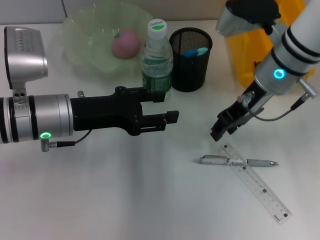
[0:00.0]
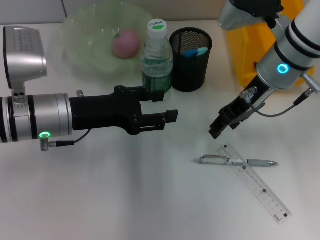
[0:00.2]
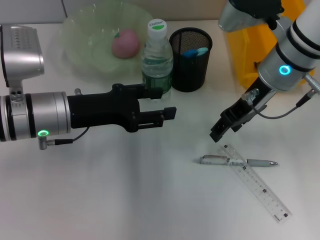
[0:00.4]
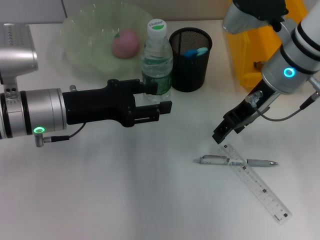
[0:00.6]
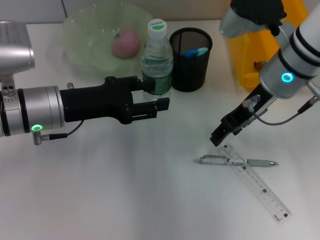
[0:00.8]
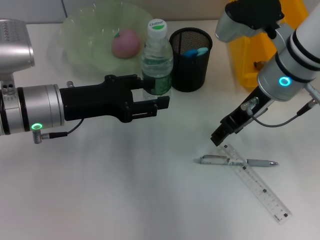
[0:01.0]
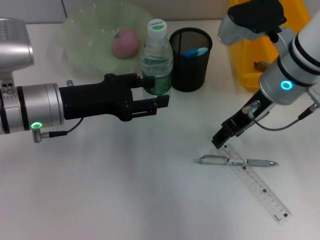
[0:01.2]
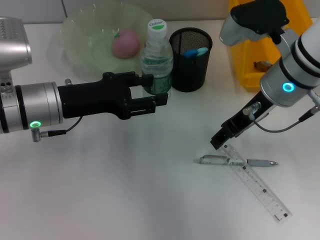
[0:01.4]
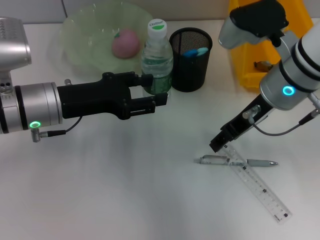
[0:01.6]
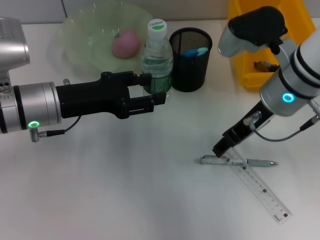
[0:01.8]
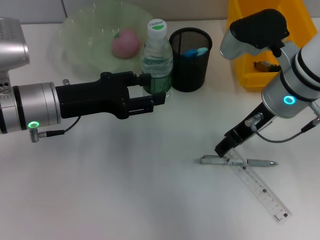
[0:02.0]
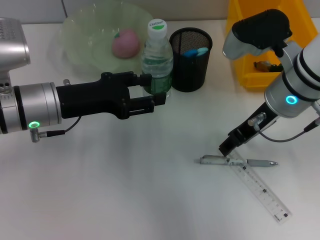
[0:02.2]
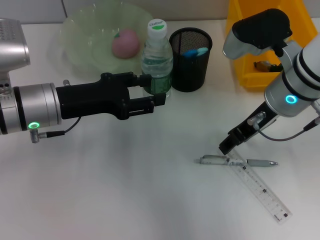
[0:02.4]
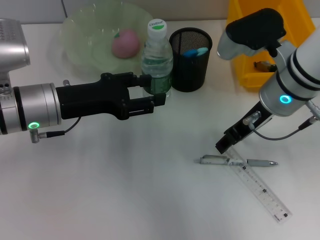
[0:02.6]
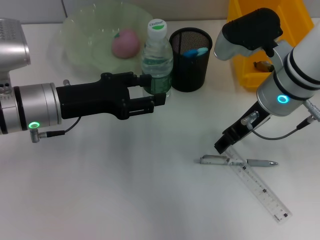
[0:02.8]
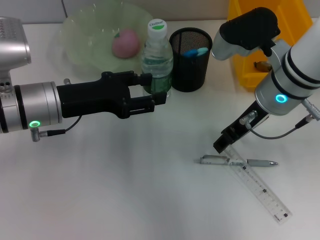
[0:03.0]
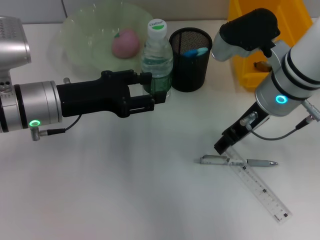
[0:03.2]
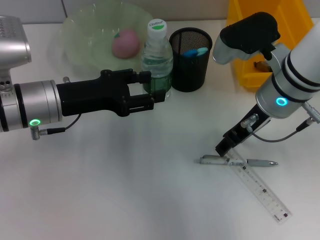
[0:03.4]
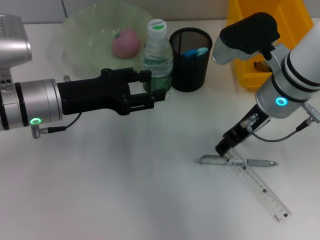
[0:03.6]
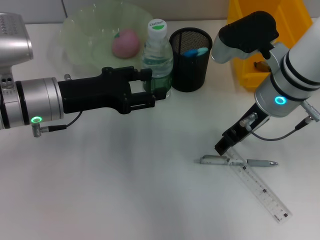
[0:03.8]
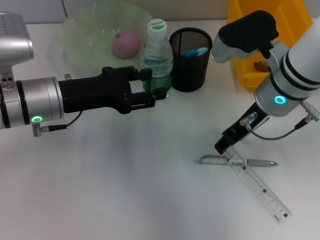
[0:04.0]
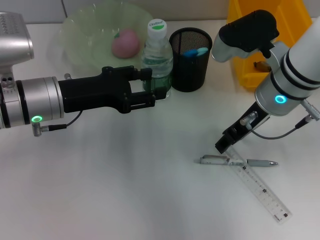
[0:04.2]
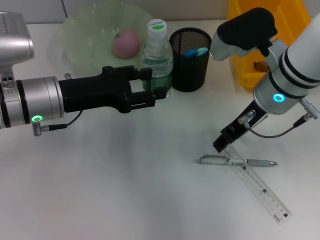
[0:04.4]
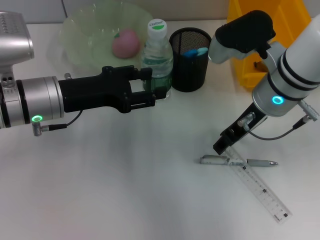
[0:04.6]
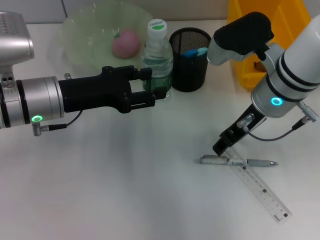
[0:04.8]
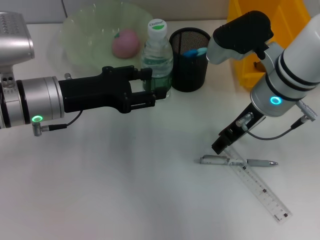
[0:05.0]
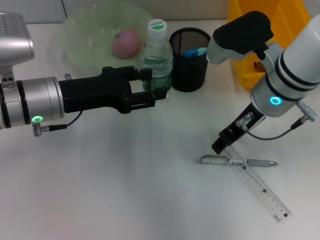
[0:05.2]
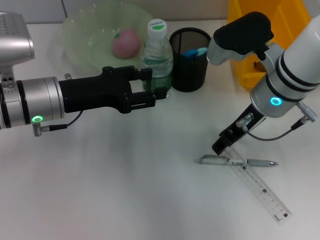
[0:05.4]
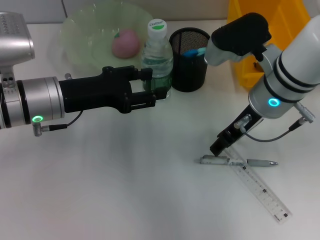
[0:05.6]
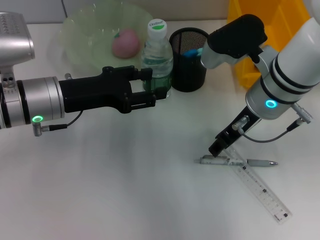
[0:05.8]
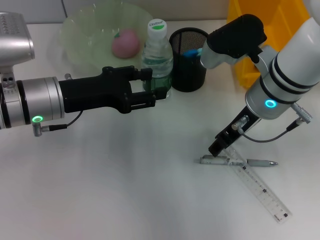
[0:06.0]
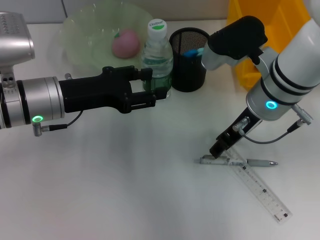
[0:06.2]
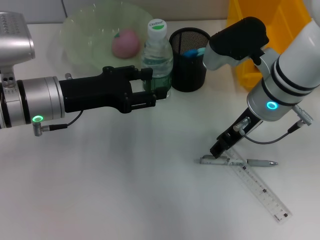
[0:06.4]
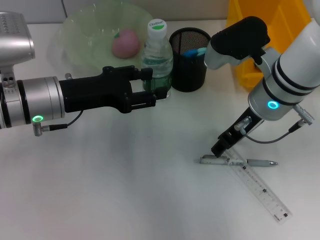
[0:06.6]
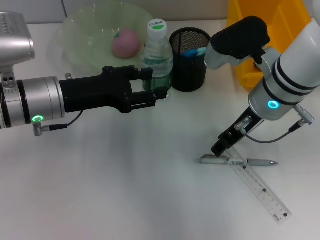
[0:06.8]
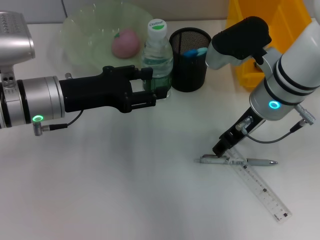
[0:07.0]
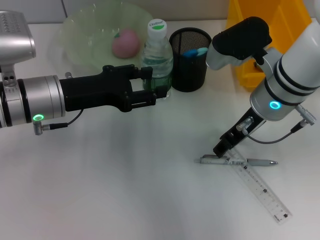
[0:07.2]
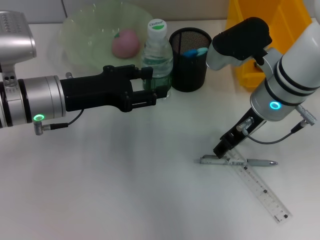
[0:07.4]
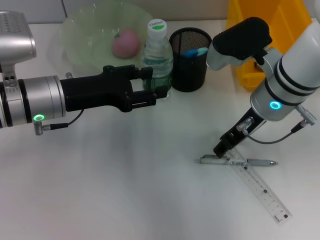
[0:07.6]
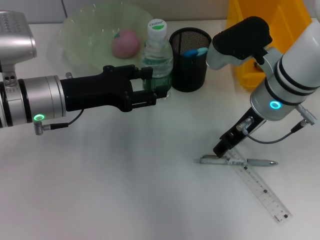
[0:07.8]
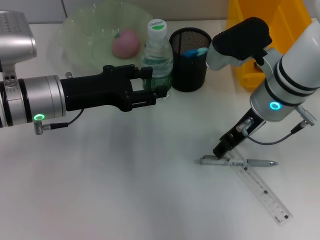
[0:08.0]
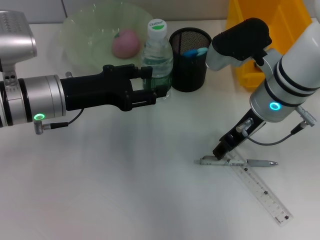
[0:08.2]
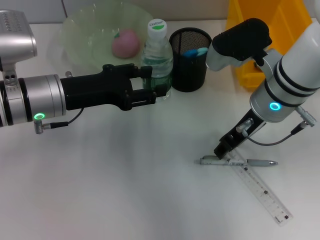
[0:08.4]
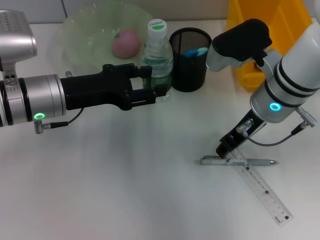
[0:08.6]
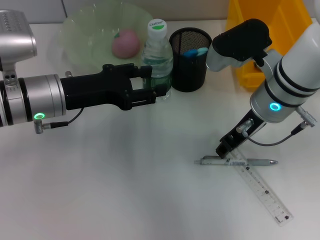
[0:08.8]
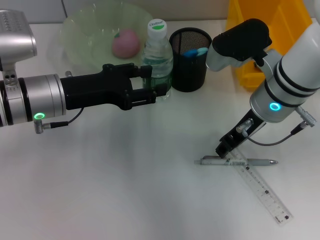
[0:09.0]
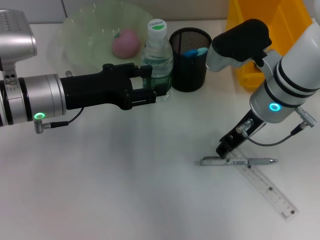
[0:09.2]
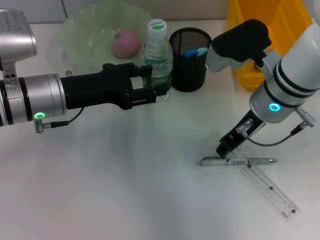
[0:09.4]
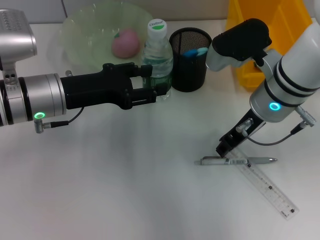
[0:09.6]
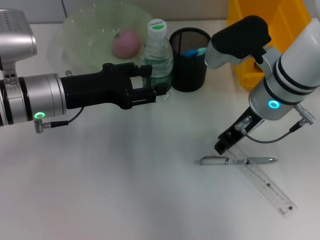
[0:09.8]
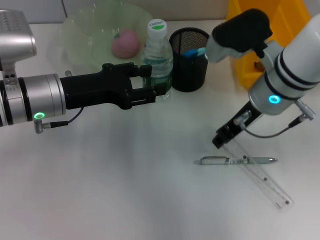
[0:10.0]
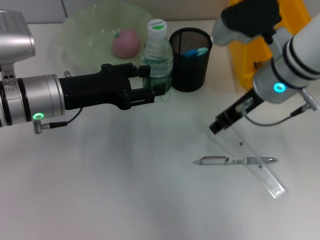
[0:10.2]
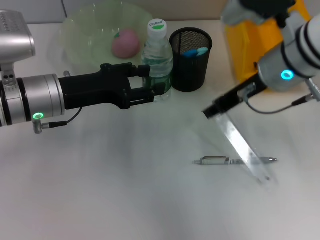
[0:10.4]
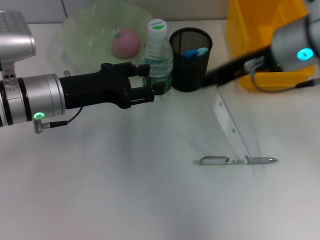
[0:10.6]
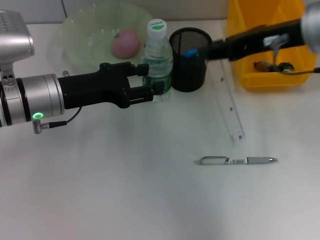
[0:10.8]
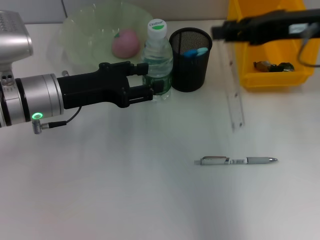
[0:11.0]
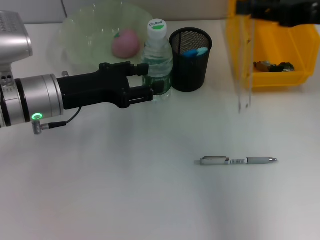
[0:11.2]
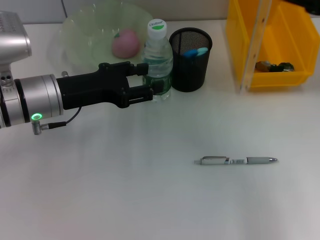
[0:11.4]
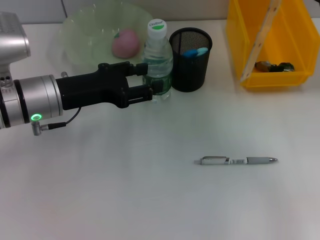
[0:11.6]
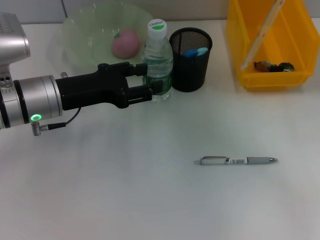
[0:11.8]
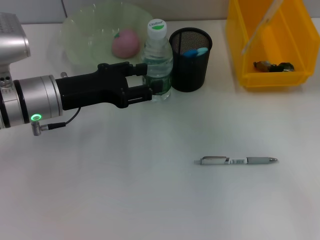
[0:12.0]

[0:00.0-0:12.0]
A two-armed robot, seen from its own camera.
Step, 0:00.0 to 0:09.6: Grab the ruler with the right hand.
0:00.0 to 0:01.6: The right gripper opens up.
0:01.6 to 0:03.0: The grippers move only a little.
0:03.0 to 0:04.4: The two grippers keep their place.
0:04.4 to 0:09.0: Neither gripper changes place.
0:09.0 to 0:10.4: The right gripper is displaced upward by some 5 cm.
0:10.4 to 0:12.0: The right gripper moves to the right, approximately 15 cm.

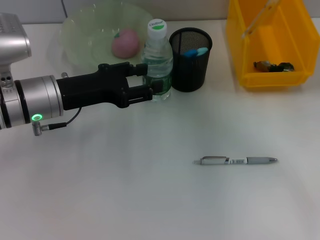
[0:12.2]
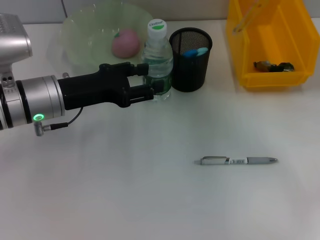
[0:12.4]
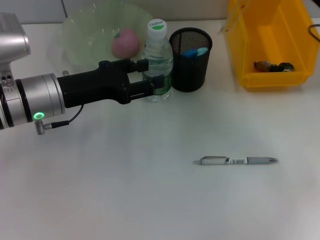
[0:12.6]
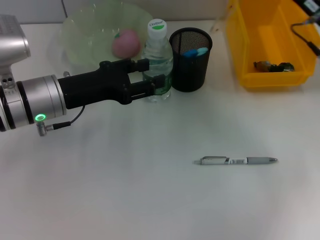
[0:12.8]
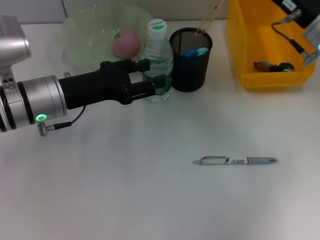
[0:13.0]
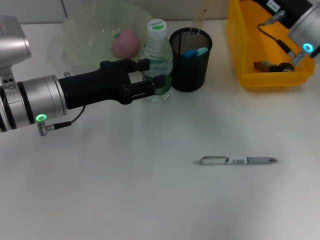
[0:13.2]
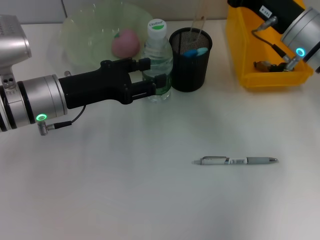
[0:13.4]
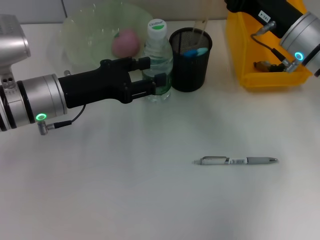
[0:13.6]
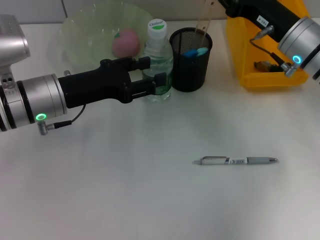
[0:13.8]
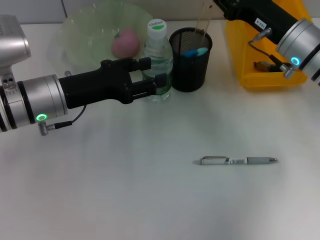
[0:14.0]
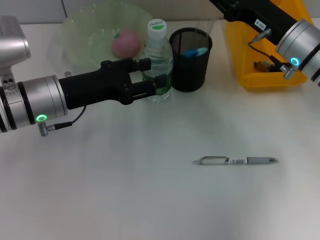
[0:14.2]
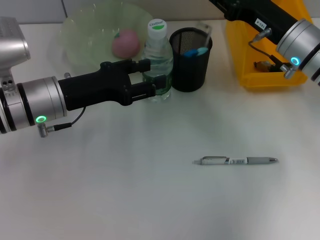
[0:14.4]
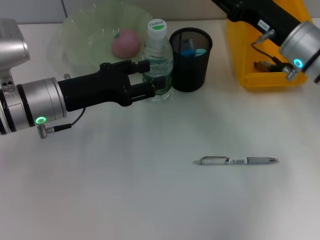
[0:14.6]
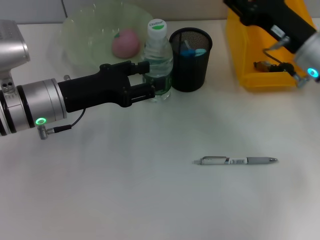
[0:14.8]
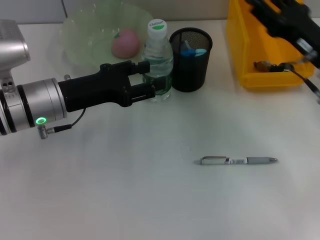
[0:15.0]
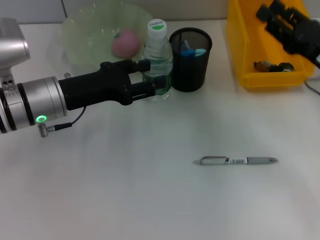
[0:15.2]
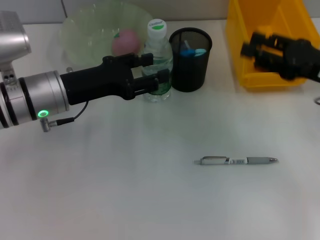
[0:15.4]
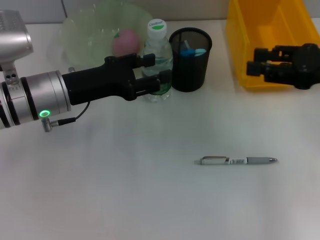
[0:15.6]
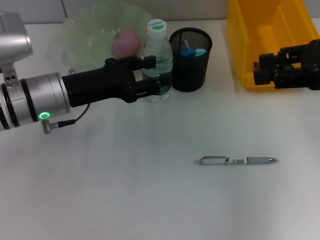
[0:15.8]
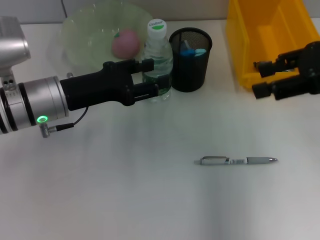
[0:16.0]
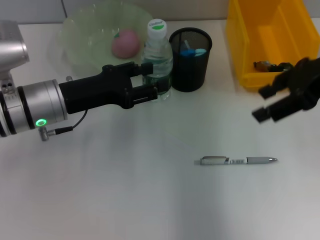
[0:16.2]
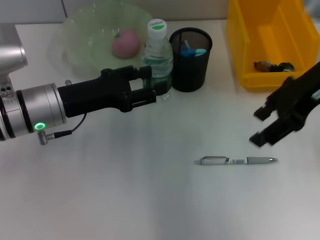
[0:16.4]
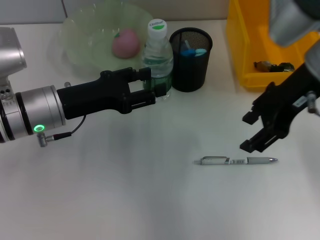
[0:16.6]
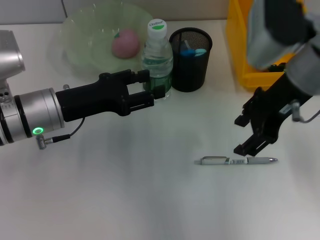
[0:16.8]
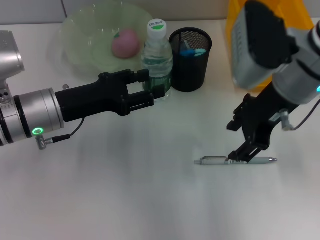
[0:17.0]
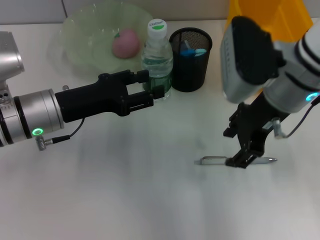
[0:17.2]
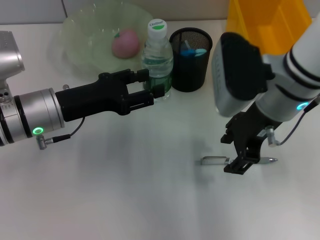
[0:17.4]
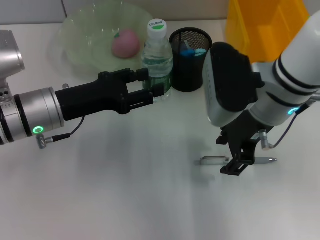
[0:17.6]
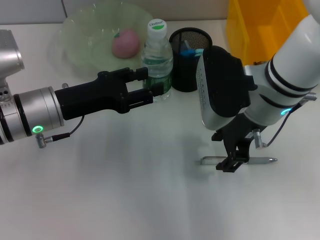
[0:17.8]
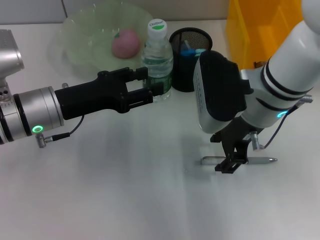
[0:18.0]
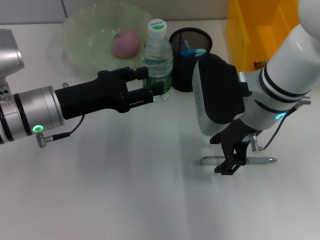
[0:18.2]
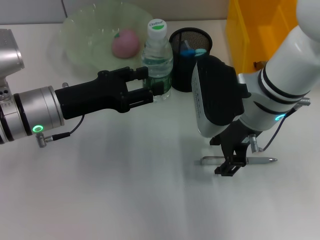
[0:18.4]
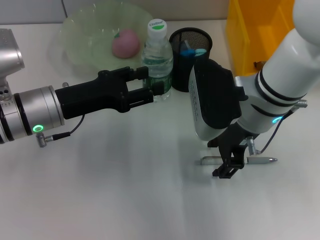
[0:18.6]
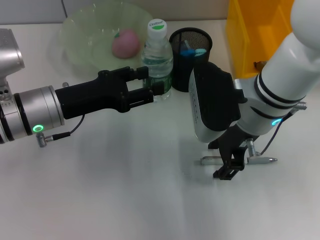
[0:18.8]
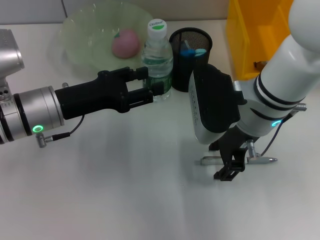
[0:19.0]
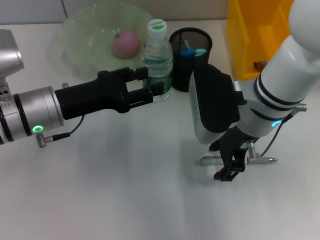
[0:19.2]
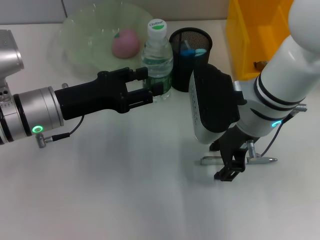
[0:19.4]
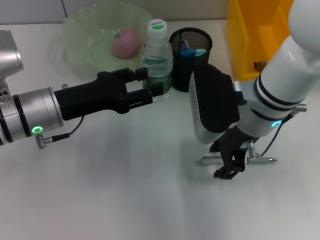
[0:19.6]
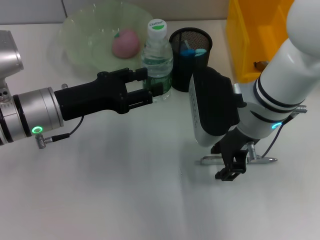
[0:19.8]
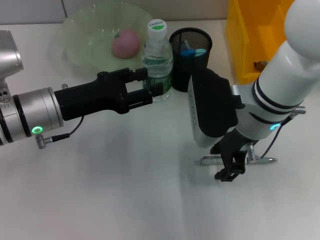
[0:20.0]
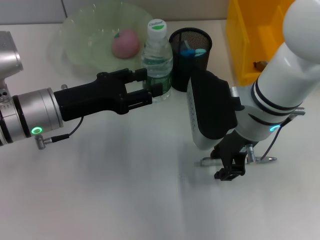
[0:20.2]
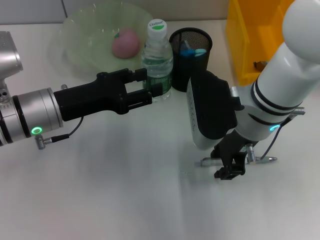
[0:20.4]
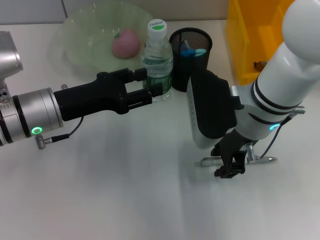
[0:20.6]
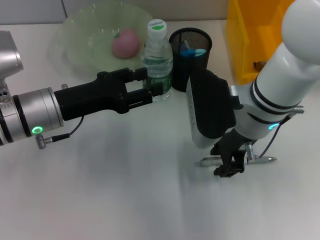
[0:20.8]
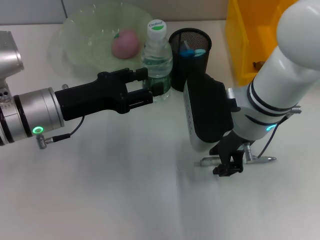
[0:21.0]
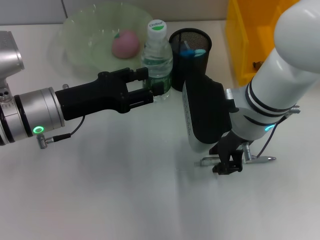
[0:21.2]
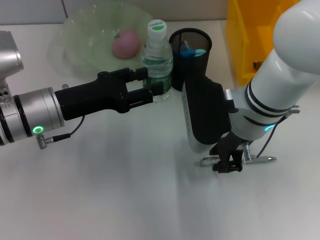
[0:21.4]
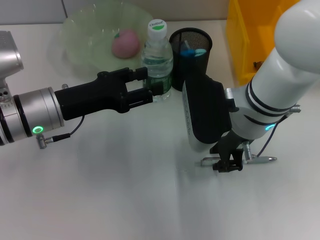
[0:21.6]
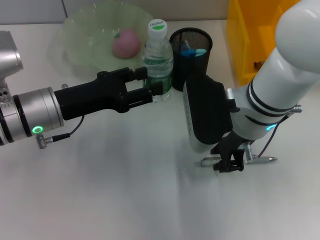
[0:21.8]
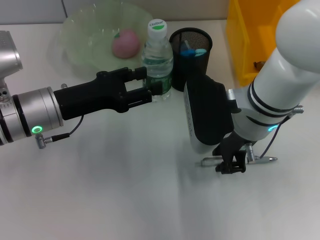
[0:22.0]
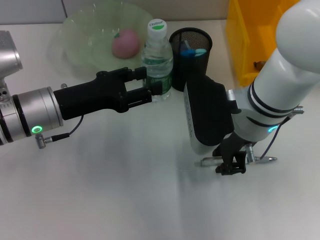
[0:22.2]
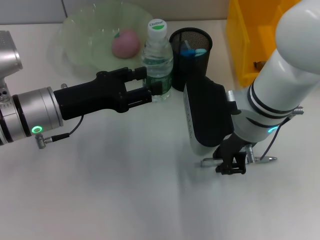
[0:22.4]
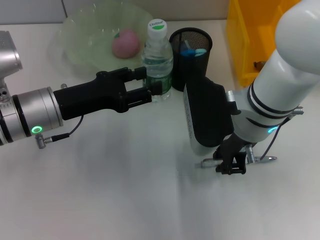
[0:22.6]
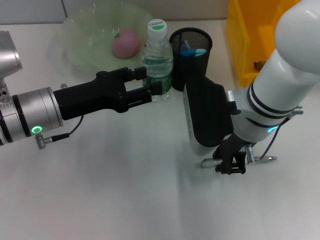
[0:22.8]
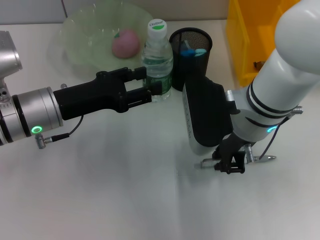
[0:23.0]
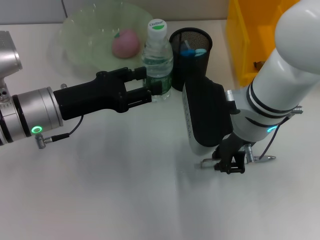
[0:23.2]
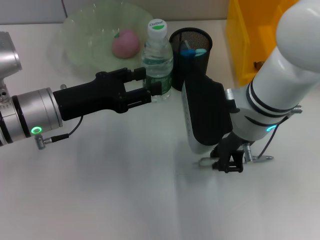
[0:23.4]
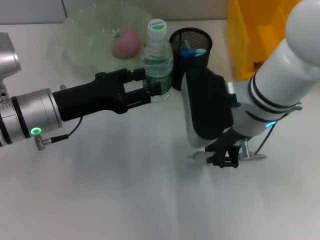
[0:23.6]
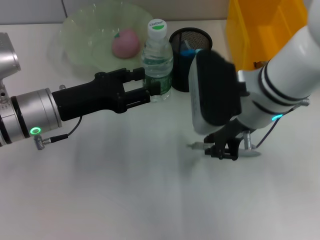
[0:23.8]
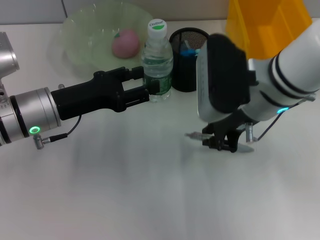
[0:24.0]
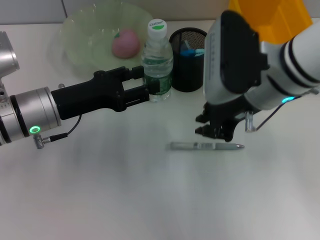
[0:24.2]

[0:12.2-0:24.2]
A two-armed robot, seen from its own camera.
Step, 0:12.2 to 0:14.6: Place the ruler into the pen holder with the right hand.
0:12.2 to 0:13.8: The right gripper travels to the left and forward by approximately 10 cm.
0:13.8 to 0:15.2: The right gripper is displaced to the right and backward by roughly 10 cm.
0:15.2 to 0:16.6: The right gripper travels upward and to the left by approximately 15 cm.
0:16.6 to 0:18.2: The right gripper travels downward and to the left by roughly 10 cm.
0:18.2 to 0:19.8: The two grippers keep their place.
0:19.8 to 0:22.6: Both grippers stay about where they are.
0:22.6 to 0:24.2: The right gripper heads upward, covering about 5 cm.
